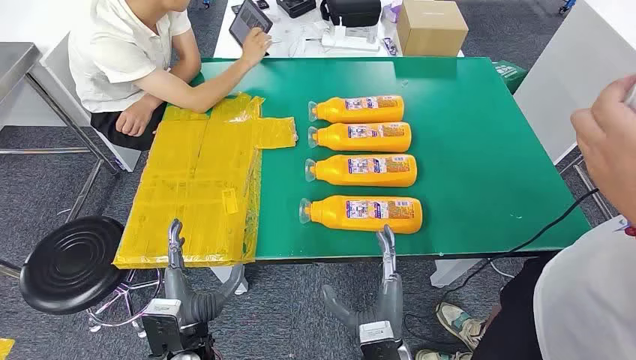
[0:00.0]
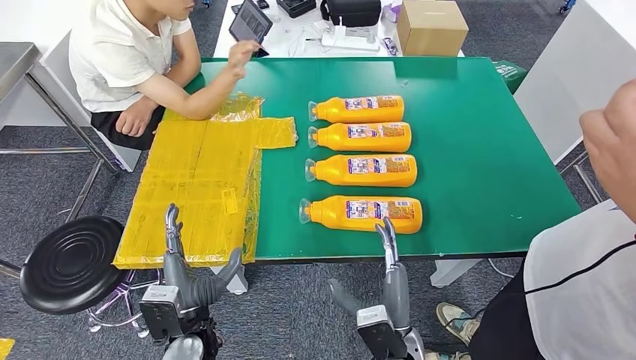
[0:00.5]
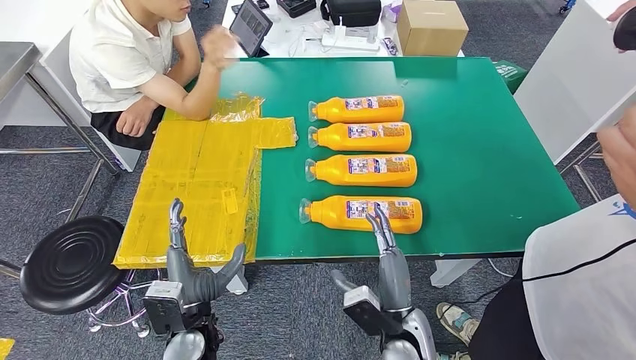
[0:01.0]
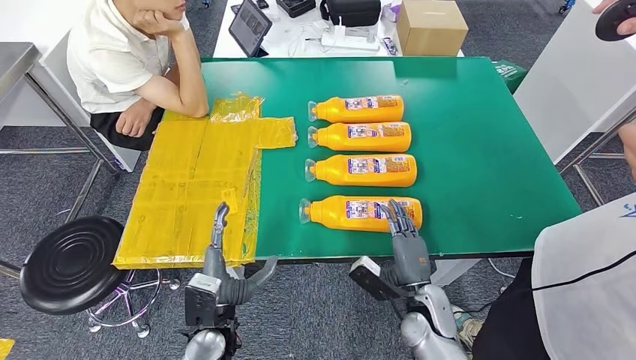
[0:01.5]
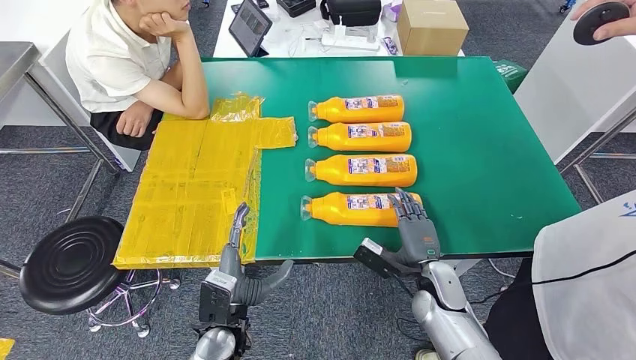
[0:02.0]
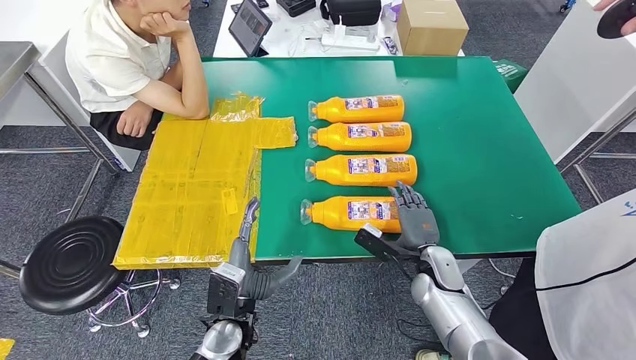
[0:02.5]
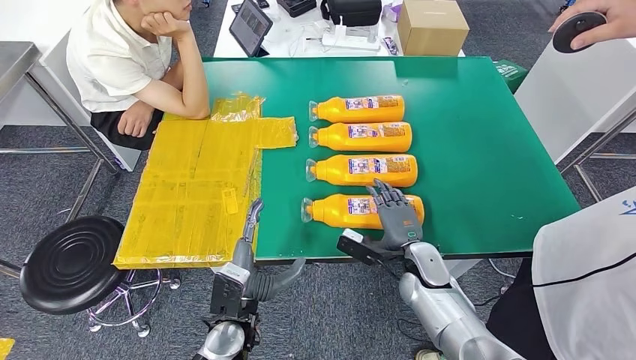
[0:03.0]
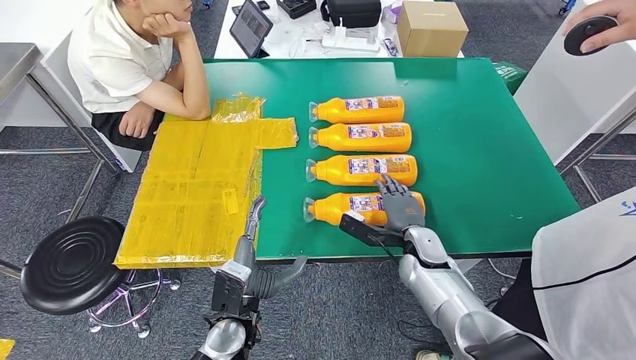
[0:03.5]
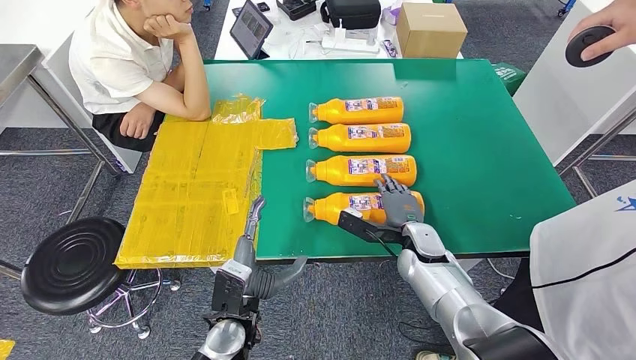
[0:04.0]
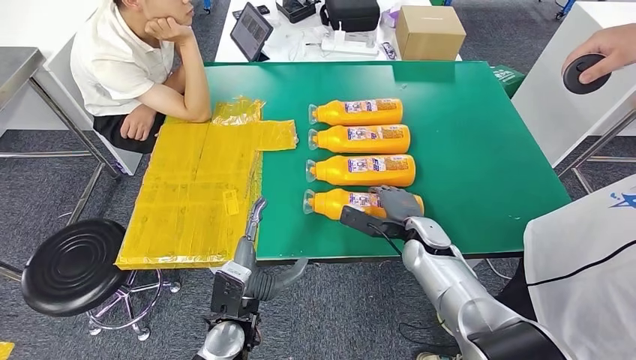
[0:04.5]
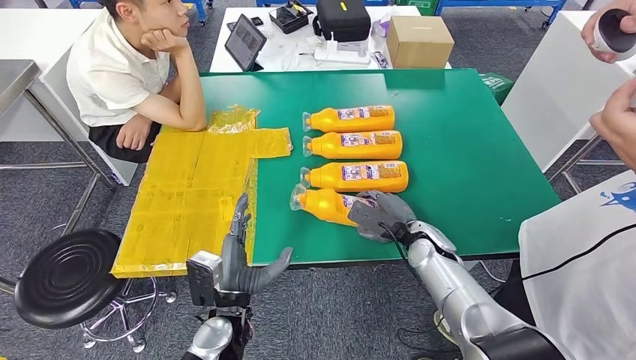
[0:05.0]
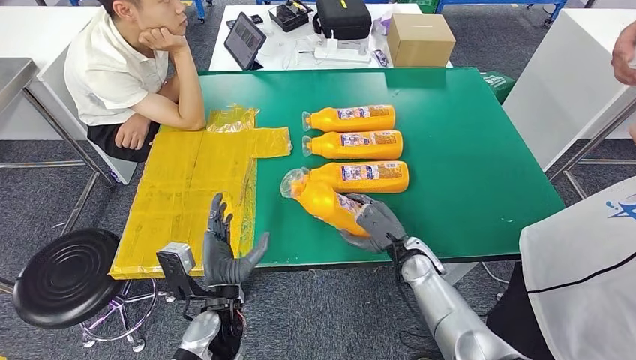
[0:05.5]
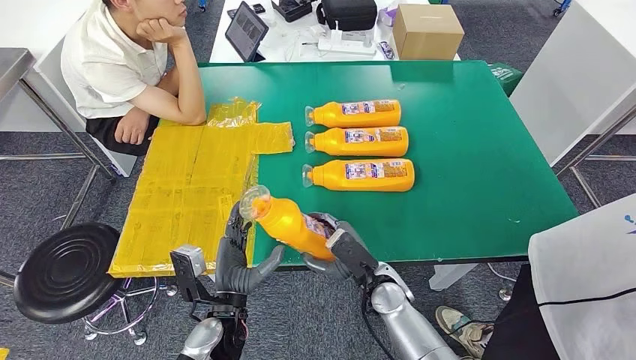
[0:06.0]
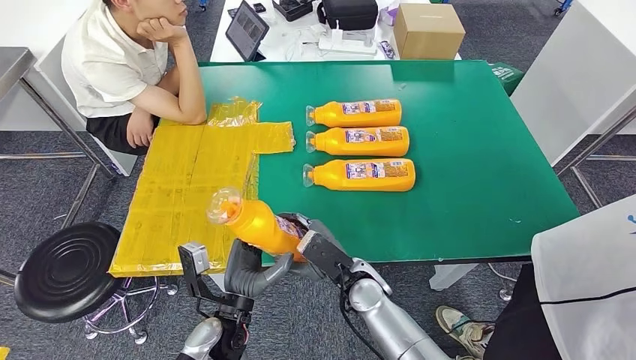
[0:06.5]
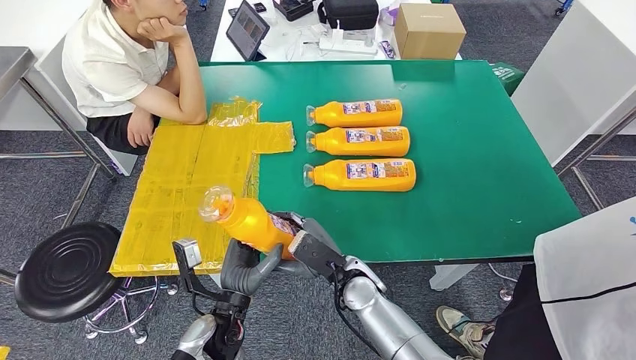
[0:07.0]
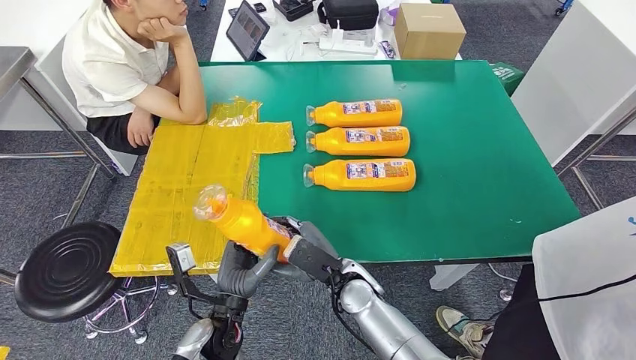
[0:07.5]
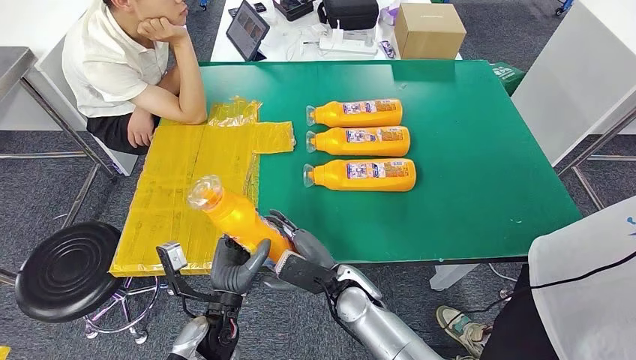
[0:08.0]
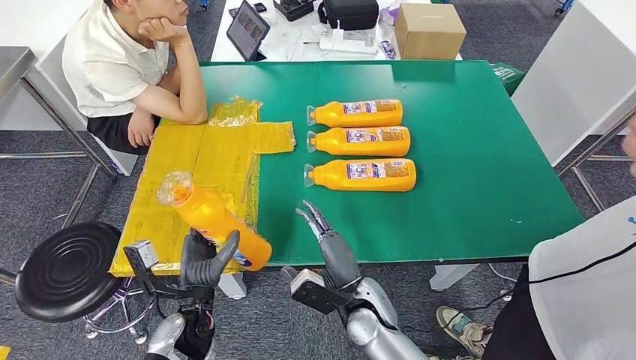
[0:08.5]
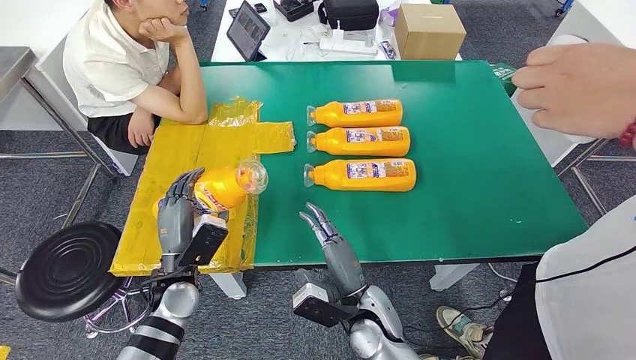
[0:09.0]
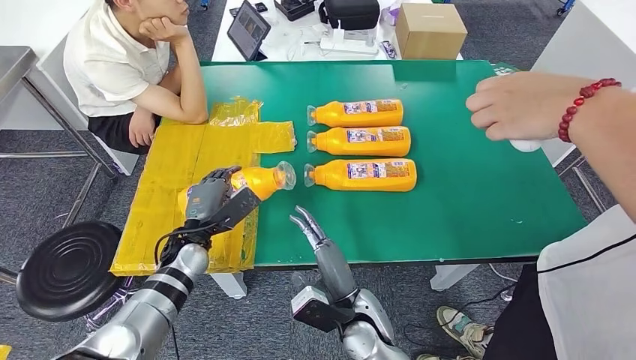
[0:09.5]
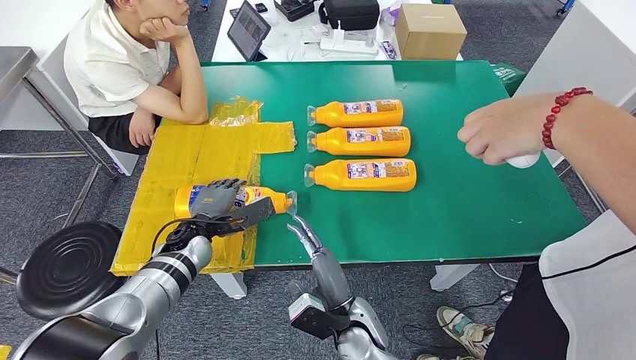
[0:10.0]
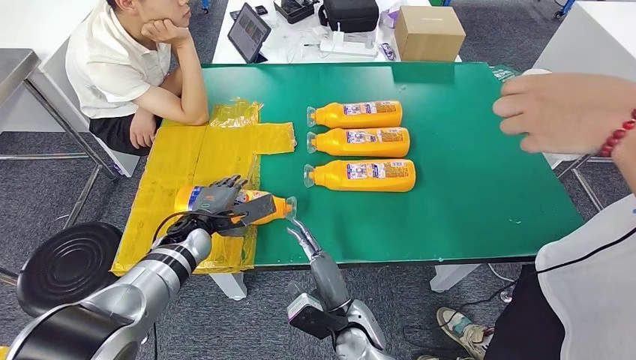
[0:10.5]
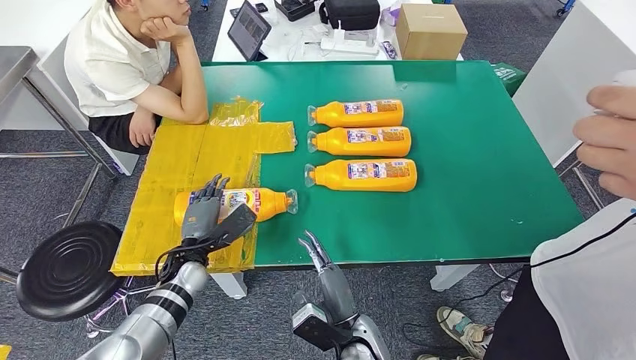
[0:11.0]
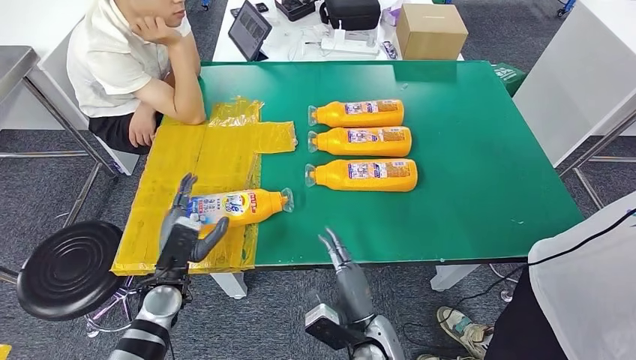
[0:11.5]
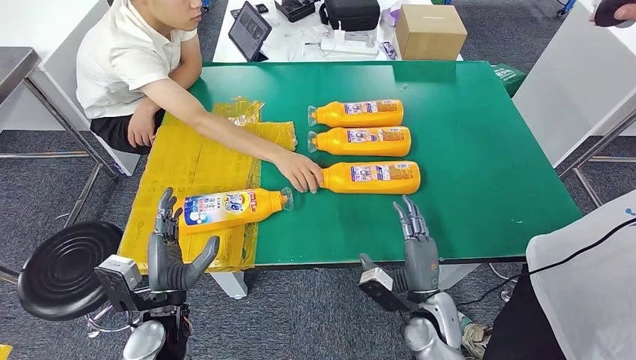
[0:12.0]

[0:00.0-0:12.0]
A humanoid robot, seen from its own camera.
Step, 0:00.0 to 0:06.0: Take the fast-moving consumer goods bottle from the table.
Step, 0:06.5 to 0:11.5: Flip the fast-moving consumer goods bottle to the front side.
0:02.0 to 0:04.0: The right hand is displaced forward by some 5 cm.
0:06.0 to 0:08.0: The right hand travels to the left by approximately 5 cm.

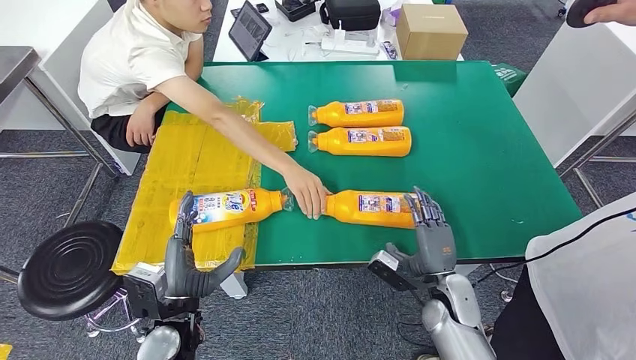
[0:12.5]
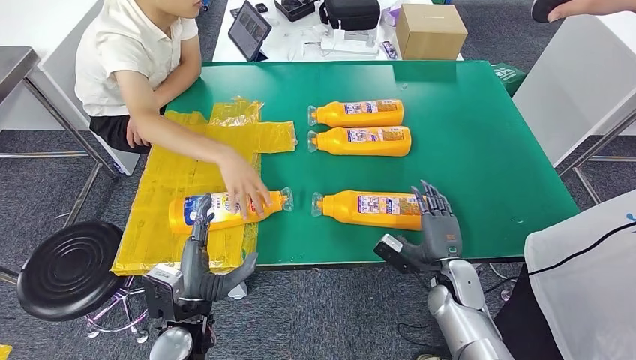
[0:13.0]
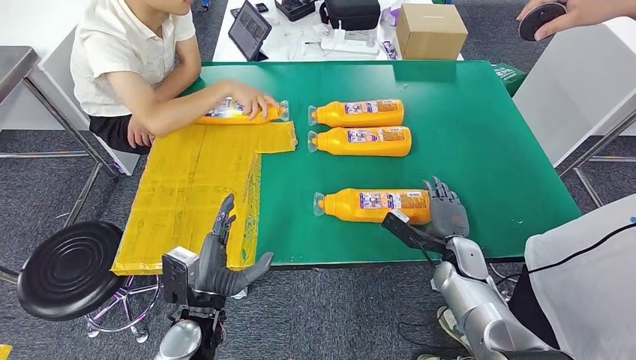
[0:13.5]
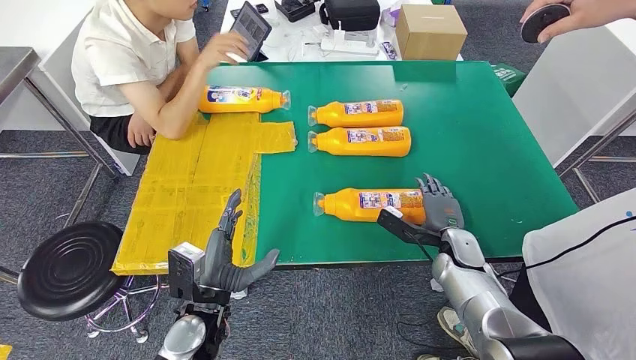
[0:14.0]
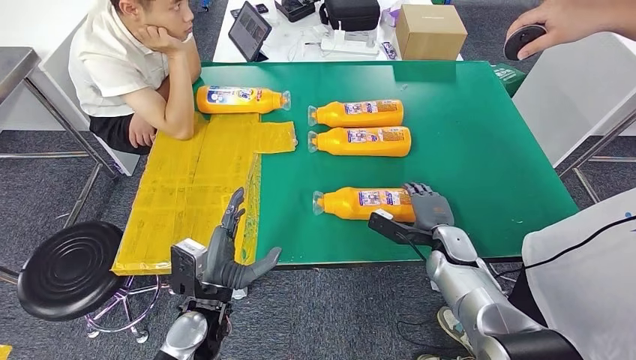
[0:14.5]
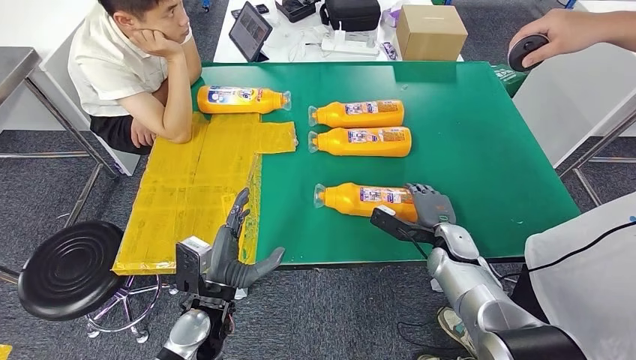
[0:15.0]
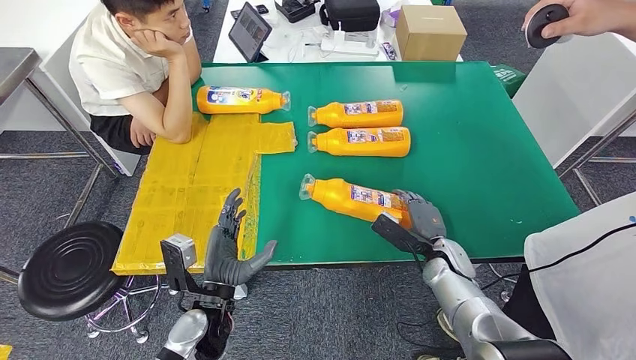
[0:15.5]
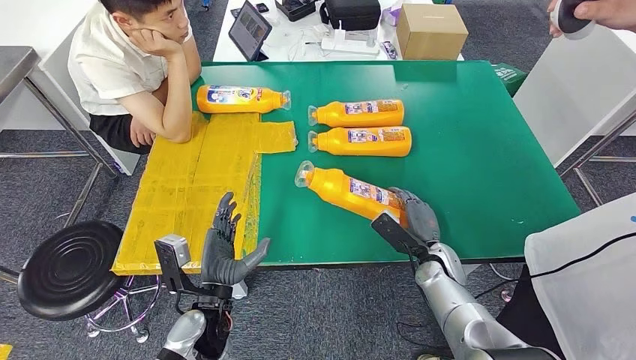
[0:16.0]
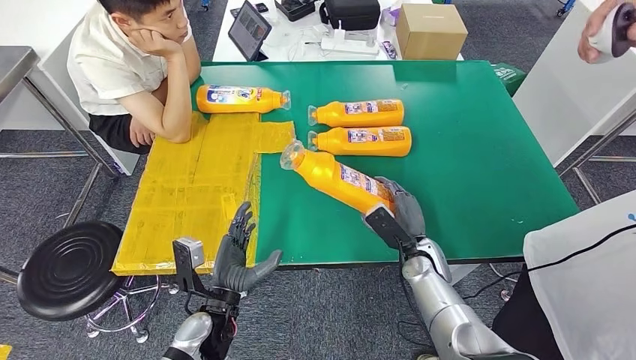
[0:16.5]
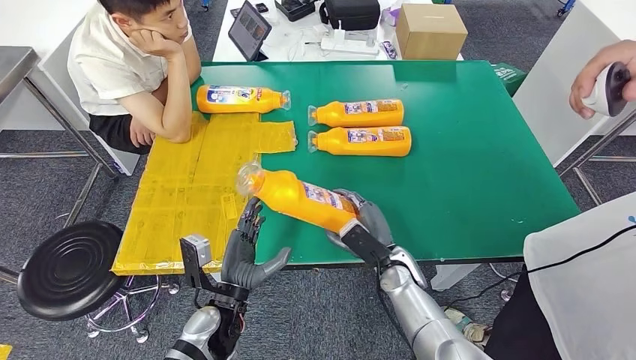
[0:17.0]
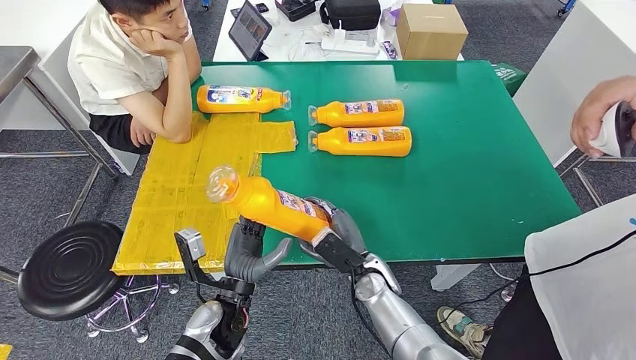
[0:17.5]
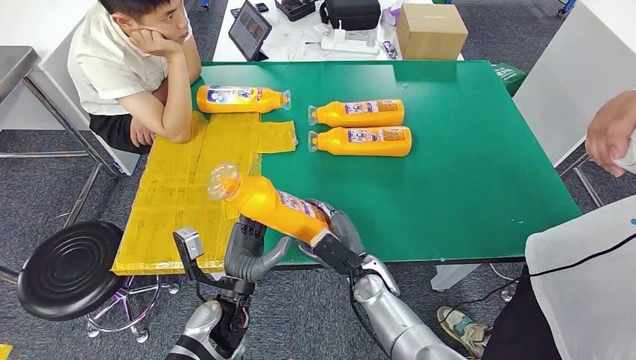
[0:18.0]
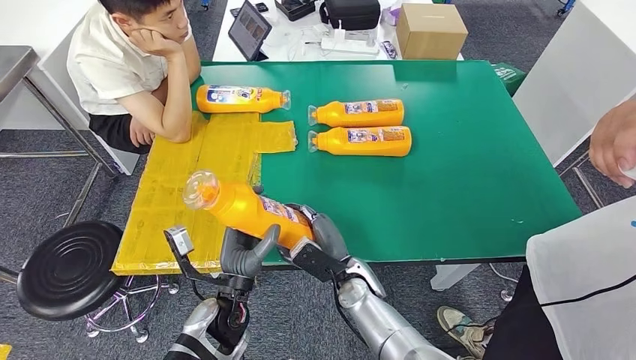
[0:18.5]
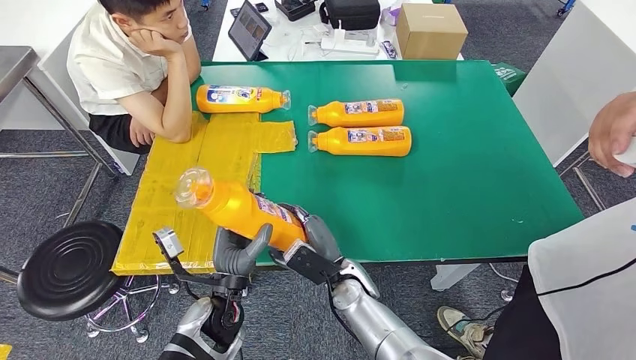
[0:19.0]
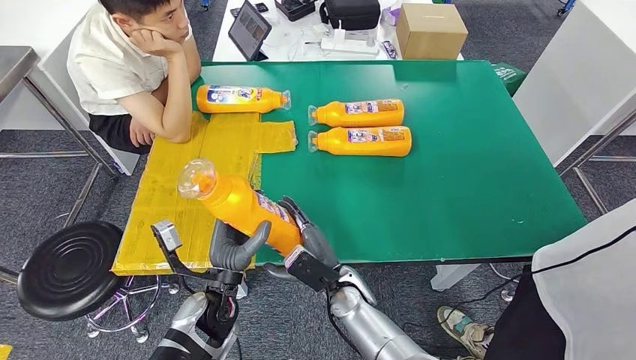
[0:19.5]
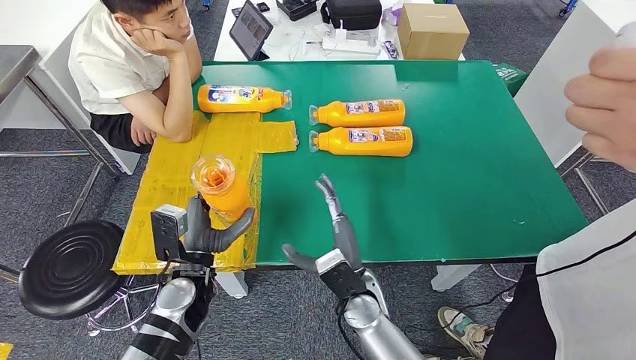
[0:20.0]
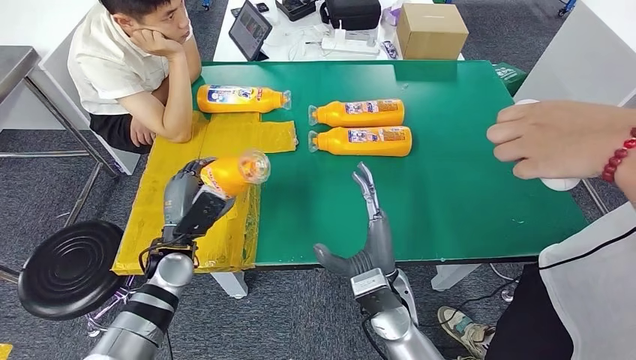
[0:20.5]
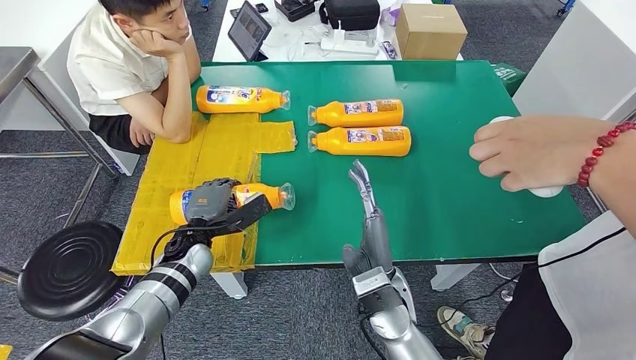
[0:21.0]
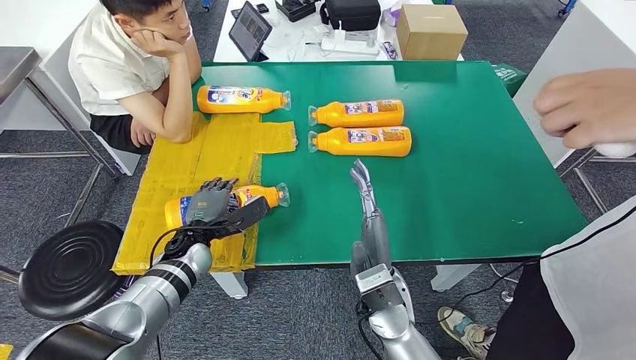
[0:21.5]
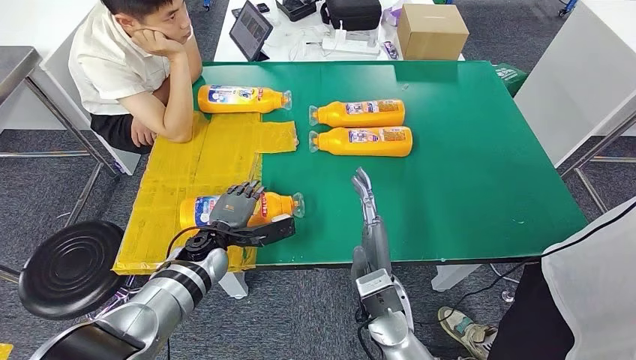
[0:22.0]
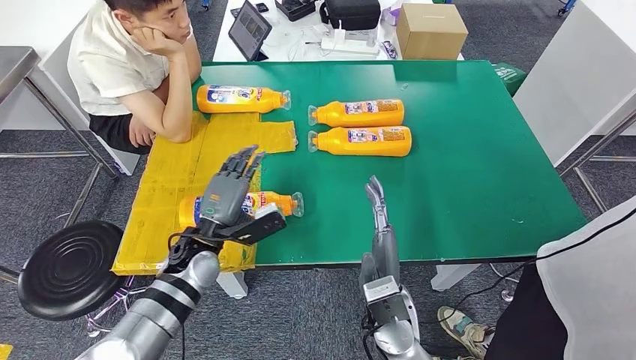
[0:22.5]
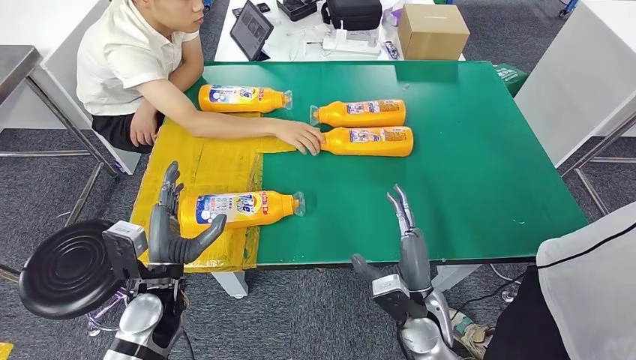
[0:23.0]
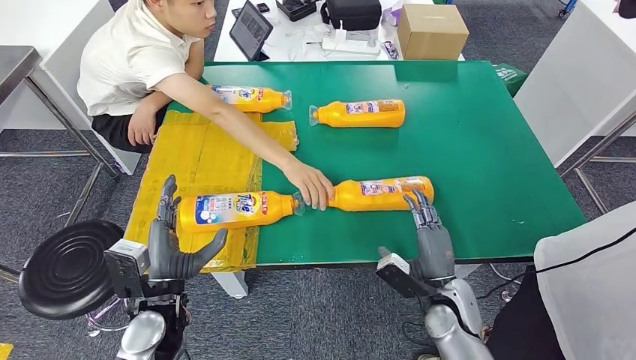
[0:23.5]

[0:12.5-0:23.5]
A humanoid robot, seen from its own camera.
Step, 0:12.5 to 0:17.0: Pick up the fast-moving consumer goods bottle from the table.
Step, 0:17.5 to 0:21.5: Flip the fast-moving consumer goods bottle to the front side.
0:16.0 to 0:18.0: The right hand is displaced to the left by about 15 cm.
0:18.0 to 0:20.0: The right hand changes place by approximately 5 cm, while the left hand goes about 5 cm to the left.
0:20.0 to 0:21.5: The left hand goes some 10 cm forward, while the right hand ends up approximately 5 cm from where it was.
